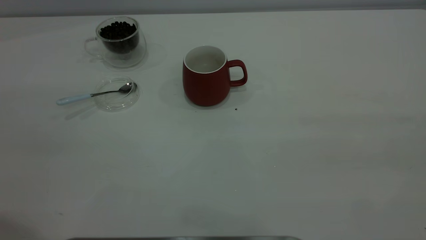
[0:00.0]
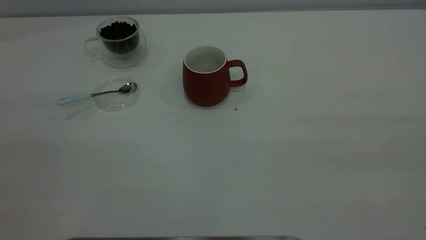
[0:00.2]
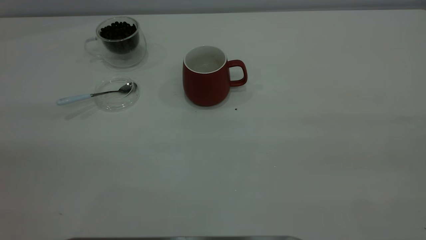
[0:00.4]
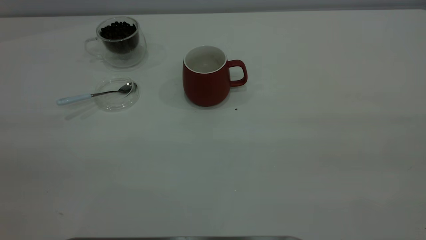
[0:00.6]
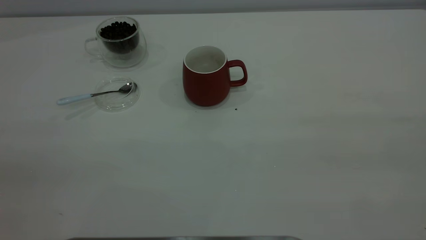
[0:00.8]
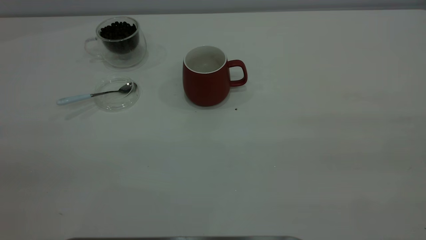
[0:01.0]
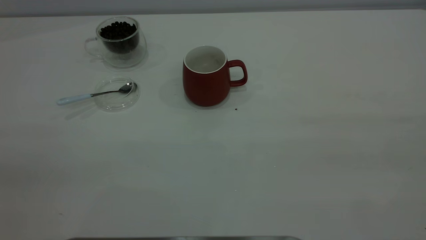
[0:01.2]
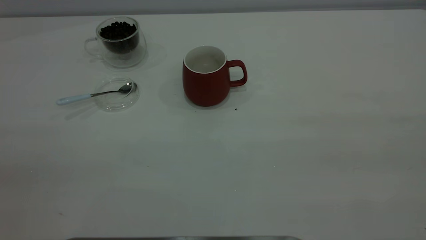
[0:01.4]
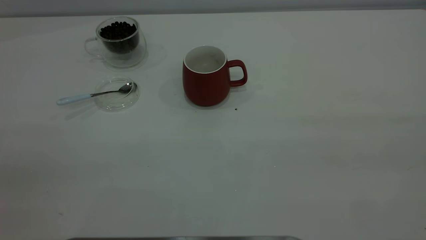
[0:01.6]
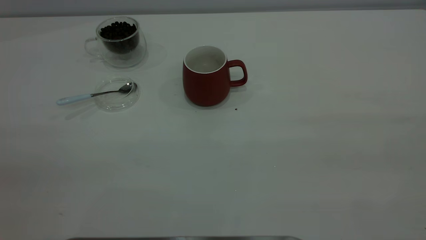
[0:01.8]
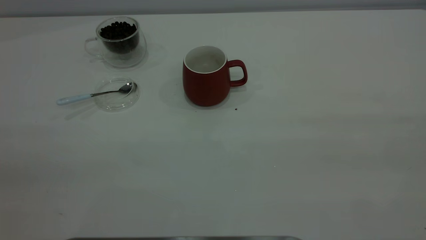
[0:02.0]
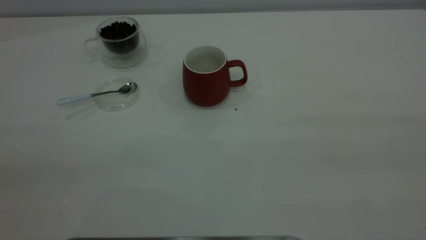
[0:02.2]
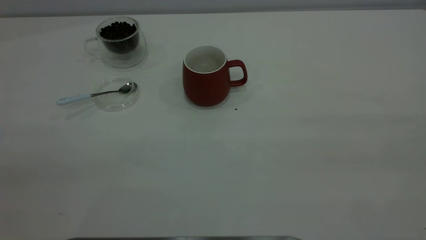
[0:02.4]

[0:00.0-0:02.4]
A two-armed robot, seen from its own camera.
Task of the whole recording: the right gripper place the red cup in the center of the table, the left gripper take the blue spoon from the cup lid and scoop out the coffee beans from the coffee cup and put them into the red cup, the left gripper put the spoon back into the cup lid.
0:01.2 to 0:02.4: The two grippers keep their place.
